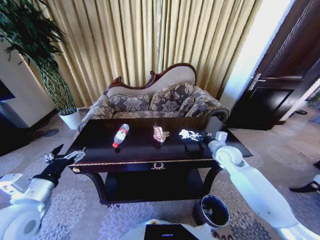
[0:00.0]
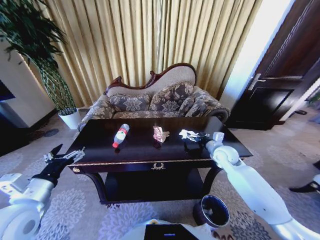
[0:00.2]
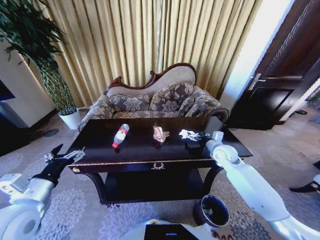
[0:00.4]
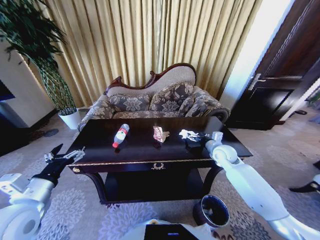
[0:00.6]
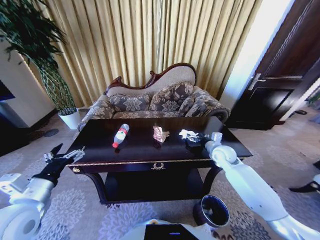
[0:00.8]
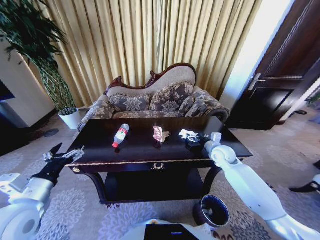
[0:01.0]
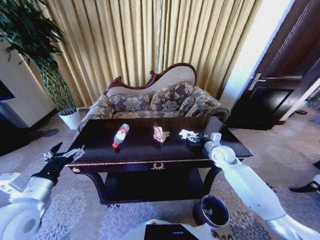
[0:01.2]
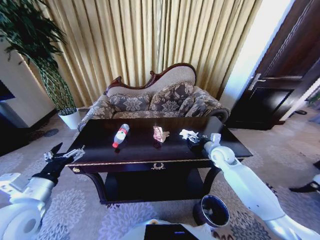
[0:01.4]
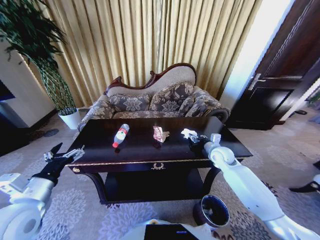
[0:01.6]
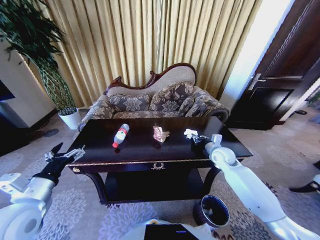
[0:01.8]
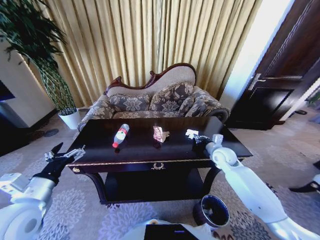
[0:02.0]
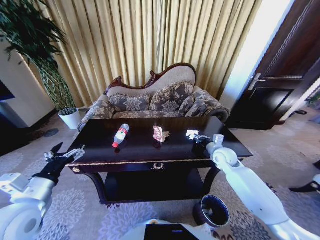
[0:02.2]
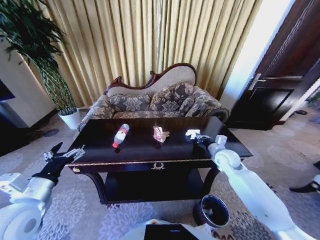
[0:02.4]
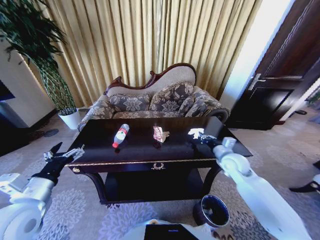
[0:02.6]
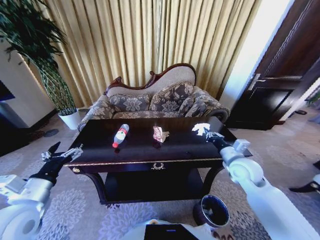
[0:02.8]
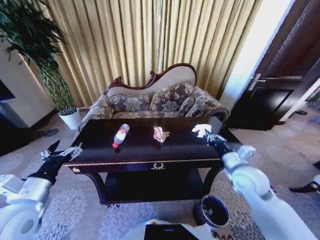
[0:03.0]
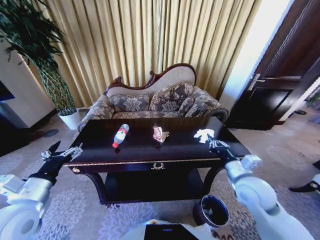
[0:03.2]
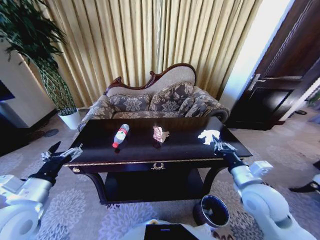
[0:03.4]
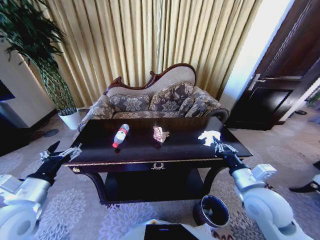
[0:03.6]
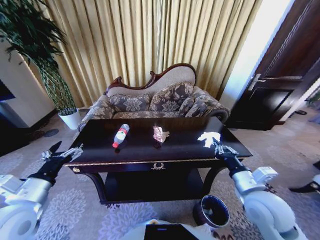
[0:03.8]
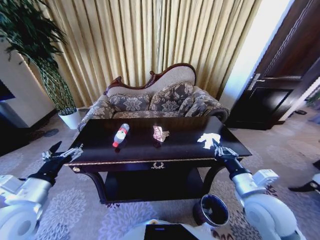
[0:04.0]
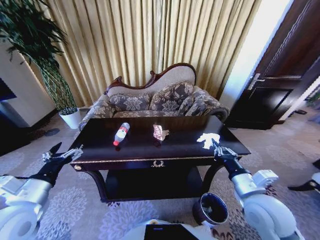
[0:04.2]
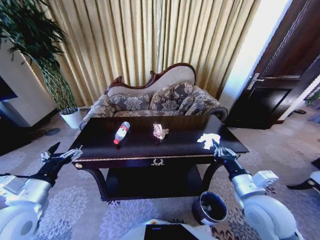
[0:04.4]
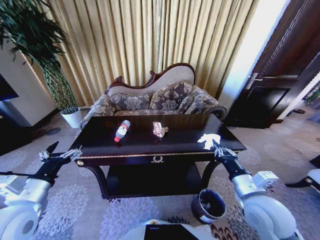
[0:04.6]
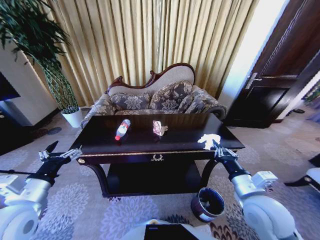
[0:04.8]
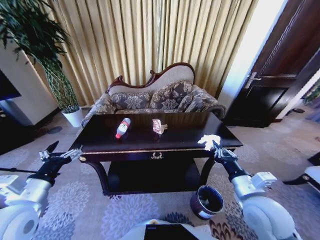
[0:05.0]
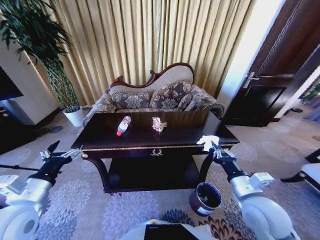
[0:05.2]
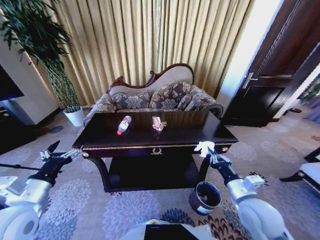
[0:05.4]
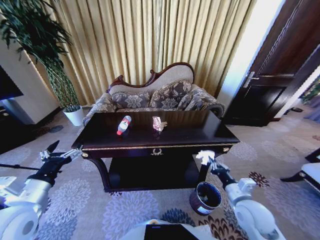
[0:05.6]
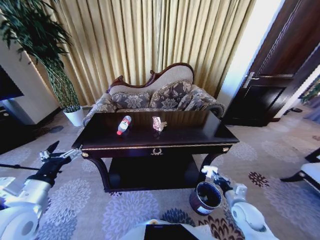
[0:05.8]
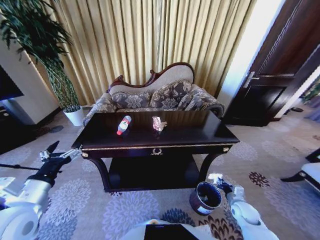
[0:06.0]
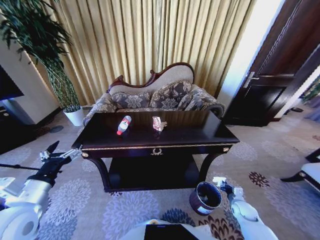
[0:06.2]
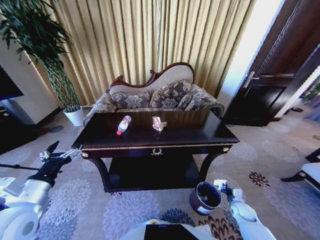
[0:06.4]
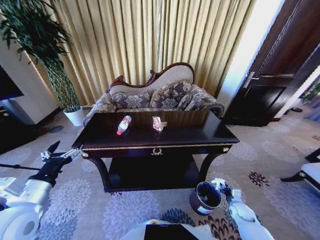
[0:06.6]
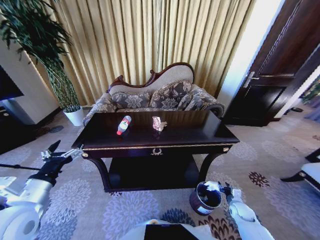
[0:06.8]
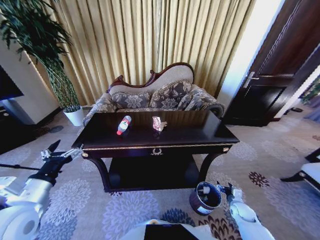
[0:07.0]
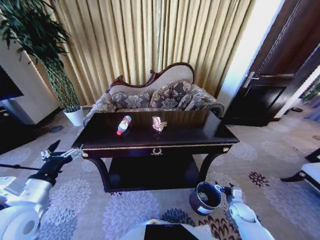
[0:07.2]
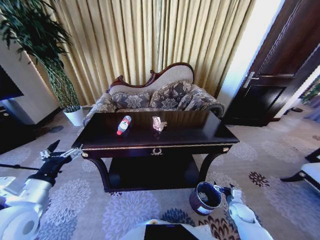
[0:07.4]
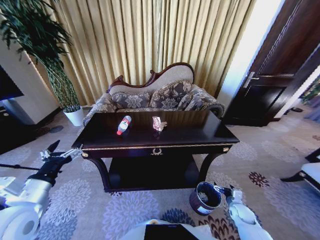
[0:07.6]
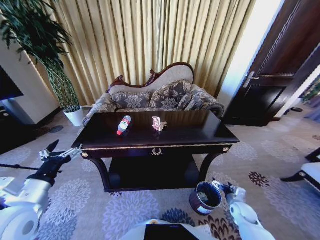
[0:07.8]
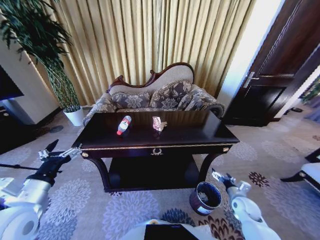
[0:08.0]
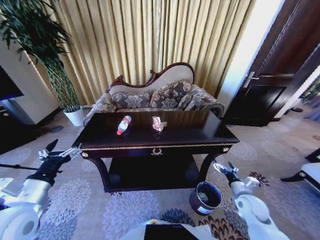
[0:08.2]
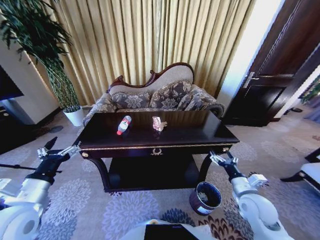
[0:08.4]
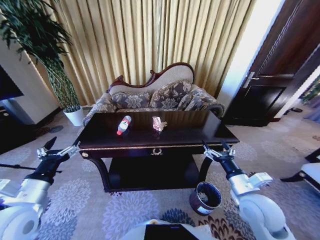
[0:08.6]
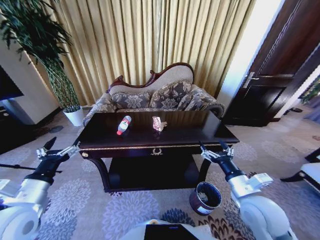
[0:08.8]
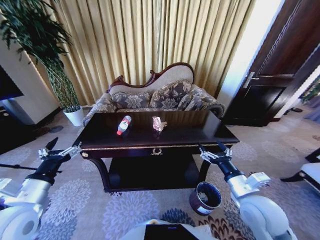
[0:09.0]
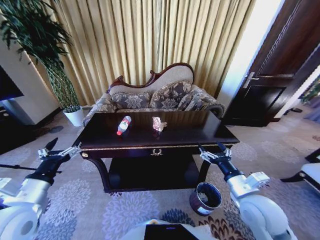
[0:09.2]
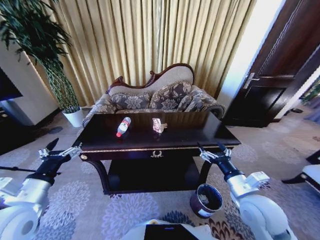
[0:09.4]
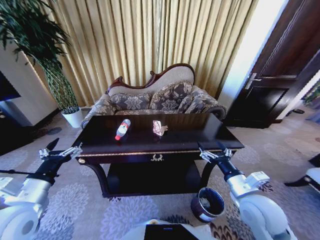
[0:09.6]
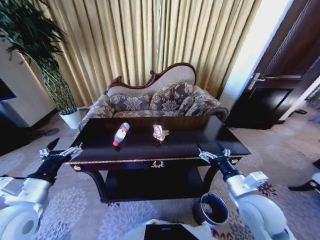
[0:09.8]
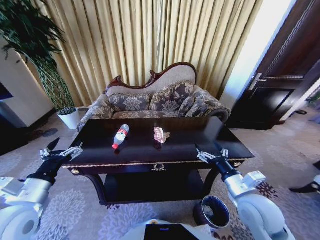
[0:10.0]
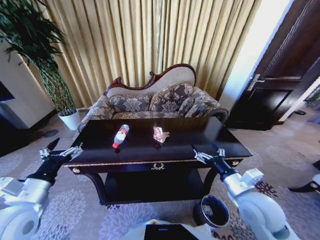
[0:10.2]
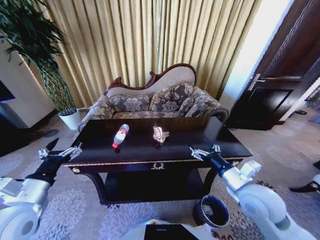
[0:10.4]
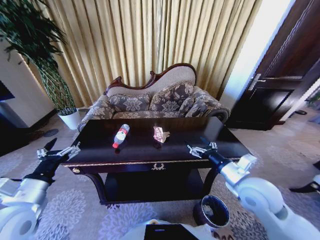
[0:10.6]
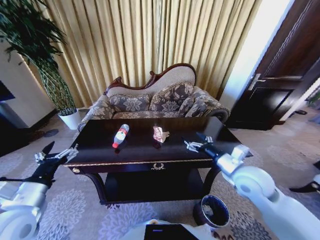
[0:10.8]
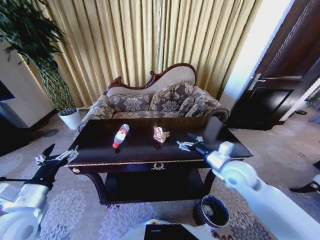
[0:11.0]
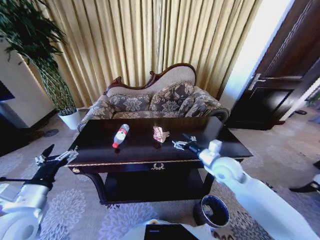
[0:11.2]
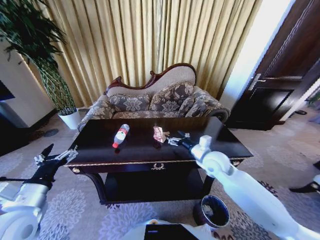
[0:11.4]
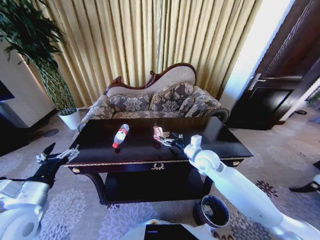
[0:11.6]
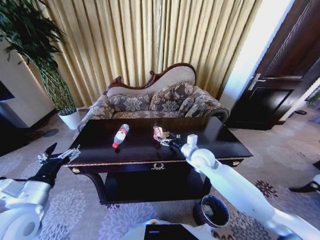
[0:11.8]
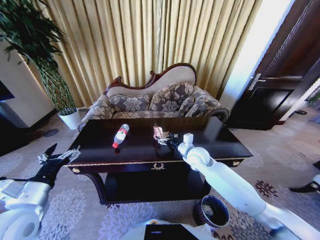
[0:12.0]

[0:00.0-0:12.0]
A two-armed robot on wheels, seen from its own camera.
Task of the whole recording: Move to the front of the table and place the trash on the table into the trash bin.
0:00.0 to 0:01.6: The right gripper closes up.
0:01.6 to 0:03.0: The right gripper heads backward and upward, covering roughly 15 cm, and closes its fingers.
0:03.0 to 0:04.4: The right gripper is displaced backward by approximately 10 cm.
0:04.4 to 0:06.0: The right gripper shifts some 30 cm downward and to the right.
0:06.0 to 0:07.6: The right gripper is displaced downward by some 5 cm, and opens its fingers.
0:07.6 to 0:09.0: The right gripper goes roughly 35 cm upward and to the left.
0:10.4 to 0:12.0: The right gripper goes about 20 cm forward and to the left.

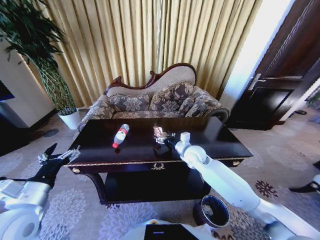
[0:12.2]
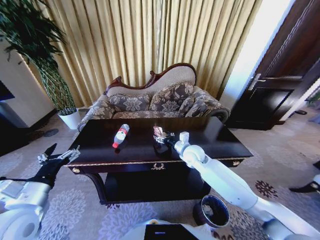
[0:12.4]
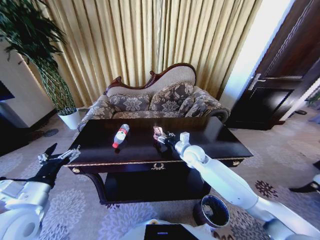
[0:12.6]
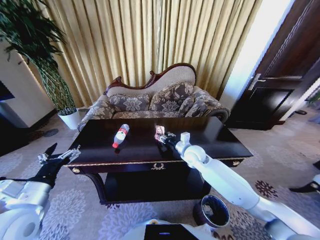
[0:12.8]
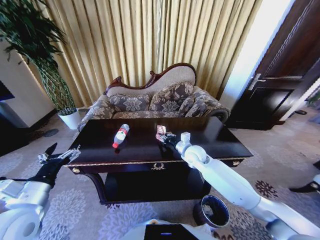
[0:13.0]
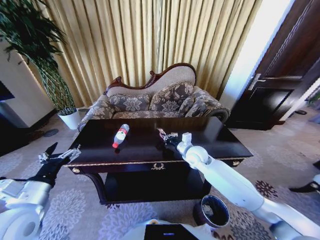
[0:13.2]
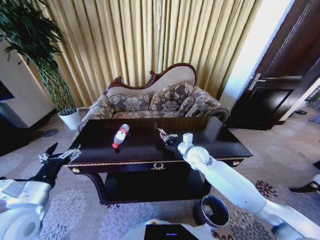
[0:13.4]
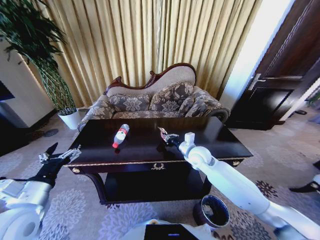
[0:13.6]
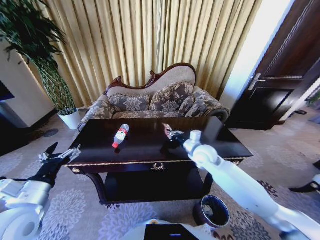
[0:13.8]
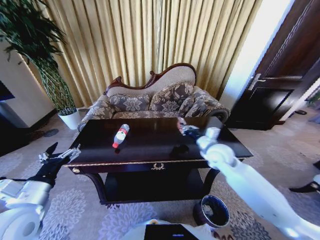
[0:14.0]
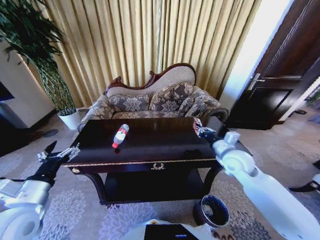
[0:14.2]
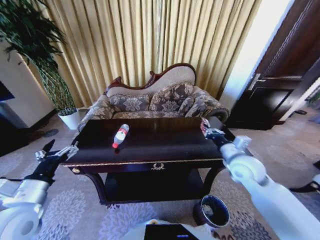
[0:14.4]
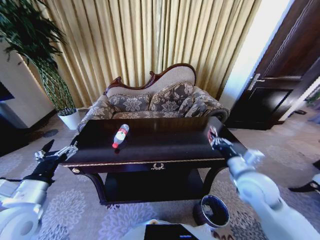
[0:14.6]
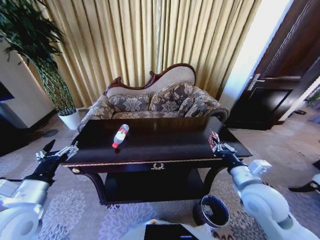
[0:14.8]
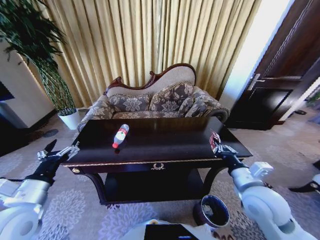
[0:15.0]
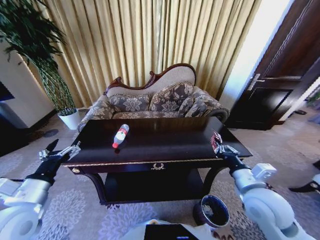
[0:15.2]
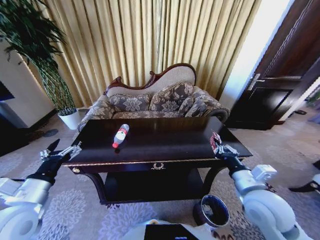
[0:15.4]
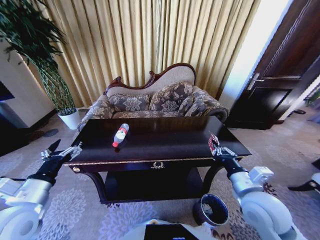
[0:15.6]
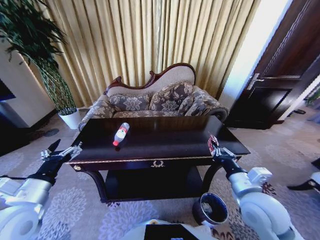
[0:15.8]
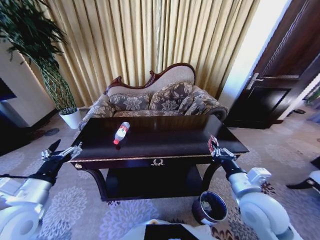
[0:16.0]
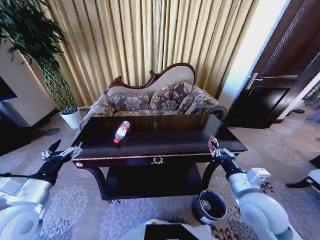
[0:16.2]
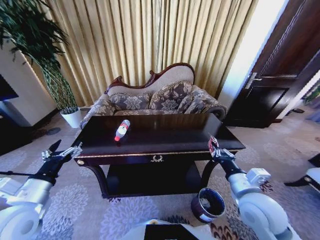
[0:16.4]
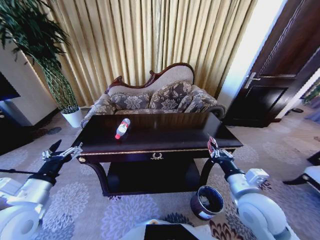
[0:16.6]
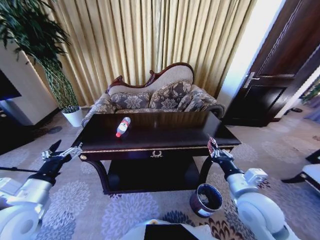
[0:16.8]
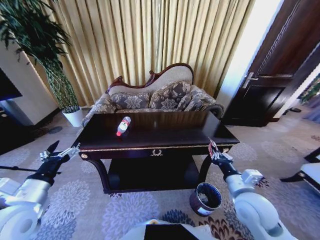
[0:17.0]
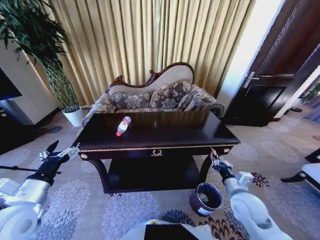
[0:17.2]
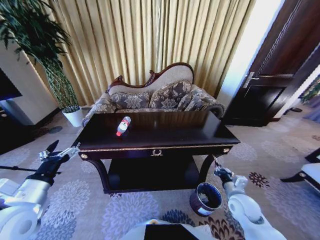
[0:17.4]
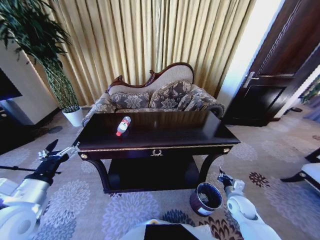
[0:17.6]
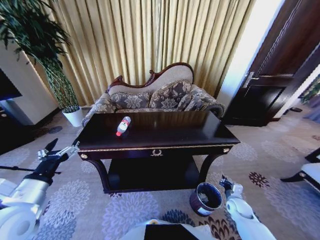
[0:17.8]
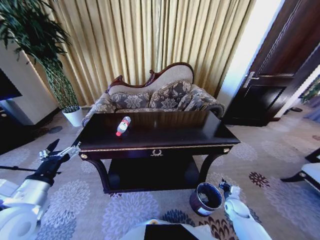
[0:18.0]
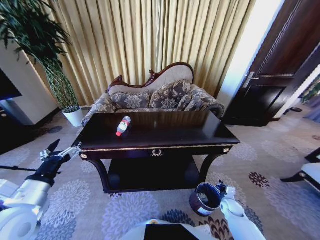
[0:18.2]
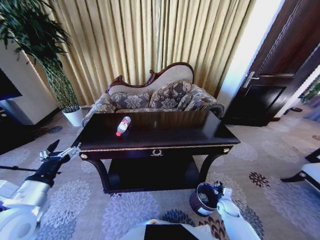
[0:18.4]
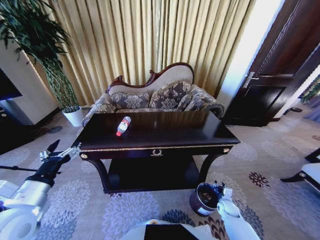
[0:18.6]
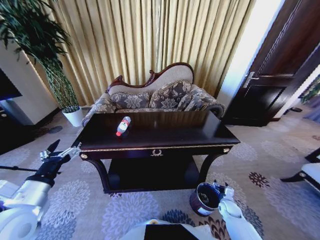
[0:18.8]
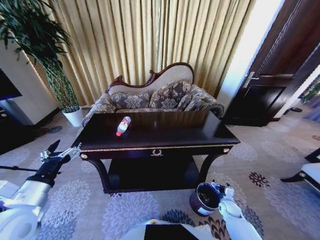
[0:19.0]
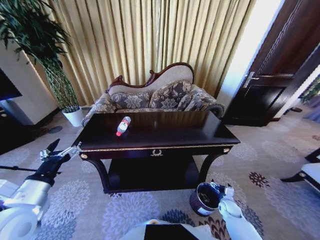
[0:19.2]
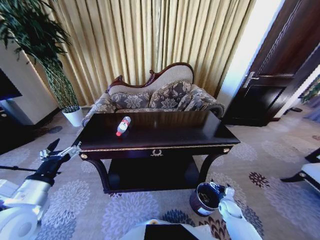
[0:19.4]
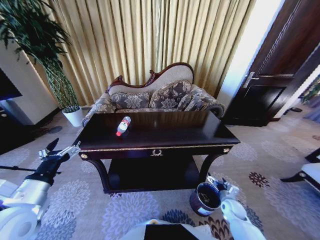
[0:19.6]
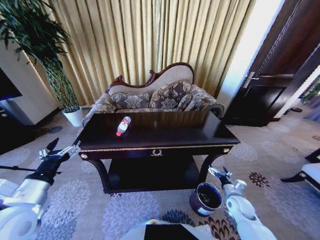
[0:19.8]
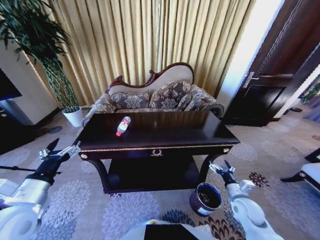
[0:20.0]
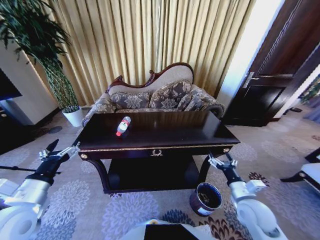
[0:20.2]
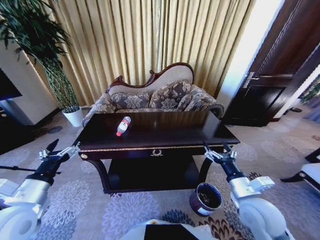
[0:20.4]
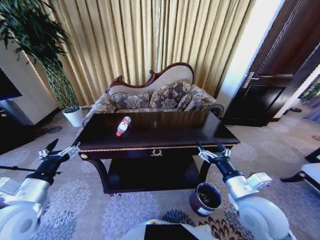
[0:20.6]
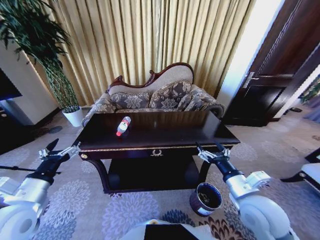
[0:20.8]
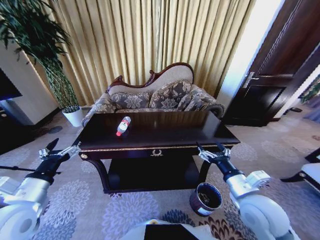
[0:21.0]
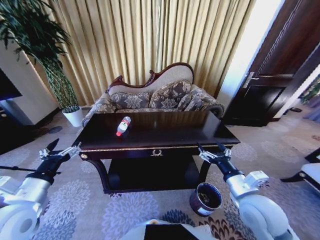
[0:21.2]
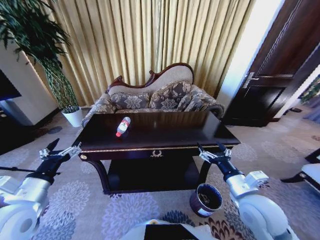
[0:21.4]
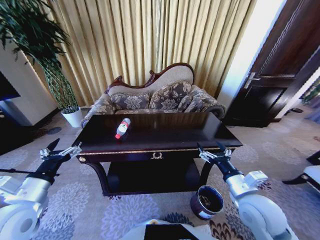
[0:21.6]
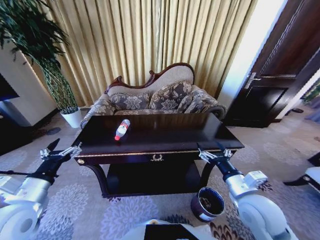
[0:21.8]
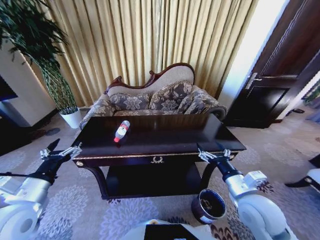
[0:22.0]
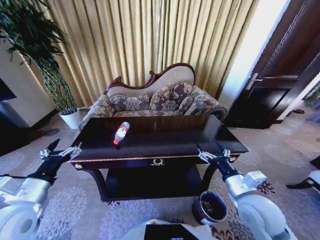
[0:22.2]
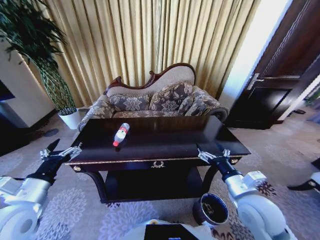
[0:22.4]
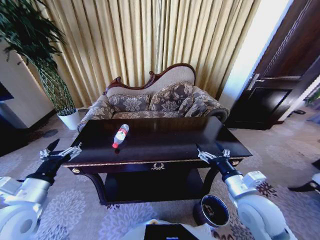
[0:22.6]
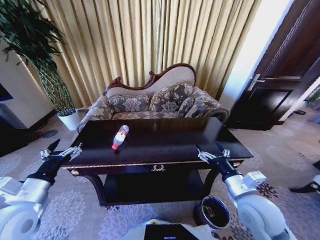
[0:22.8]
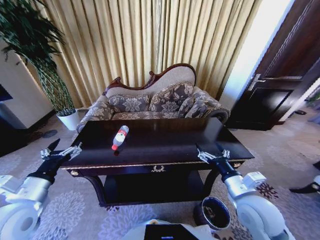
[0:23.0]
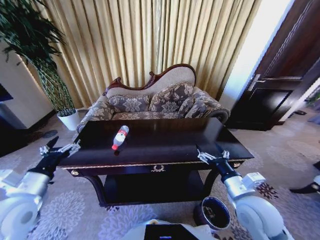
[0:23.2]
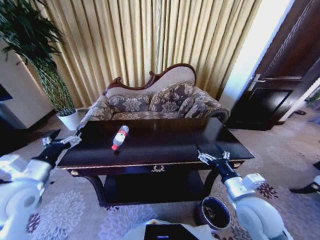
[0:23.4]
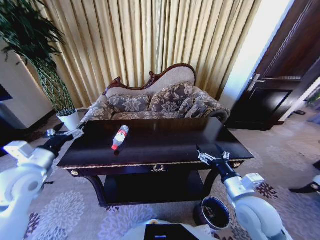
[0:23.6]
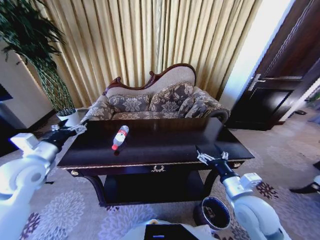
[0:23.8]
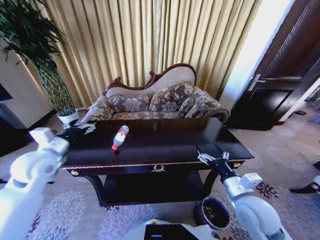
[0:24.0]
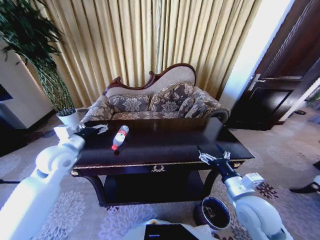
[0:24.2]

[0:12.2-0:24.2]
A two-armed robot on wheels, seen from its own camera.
Task of the whole recording: Move to the front of the table and place the trash on the table into the trash bin.
0:12.2 to 0:13.8: The right gripper closes its fingers.
0:13.8 to 0:15.2: The right gripper goes approximately 20 cm backward and to the right.
0:16.6 to 0:18.2: The right gripper goes about 35 cm downward.
0:18.2 to 0:19.8: The right gripper is displaced upward by roughly 10 cm, and opens.
0:19.8 to 0:21.2: The right gripper is displaced upward and to the left by about 25 cm.
0:22.6 to 0:24.2: The left gripper shifts some 15 cm forward.
